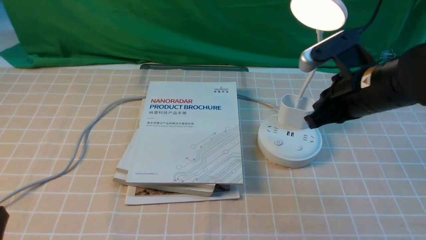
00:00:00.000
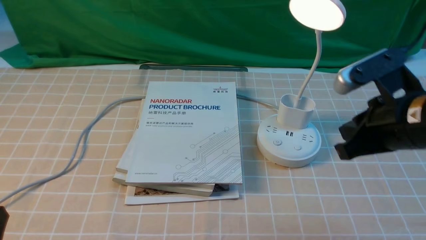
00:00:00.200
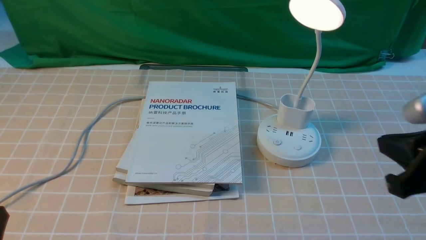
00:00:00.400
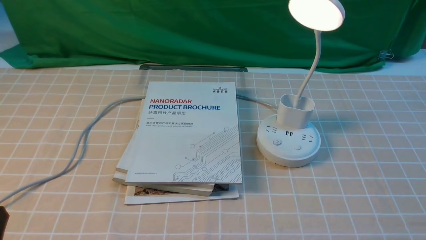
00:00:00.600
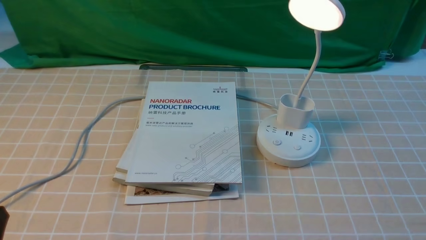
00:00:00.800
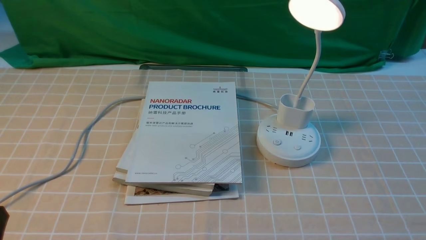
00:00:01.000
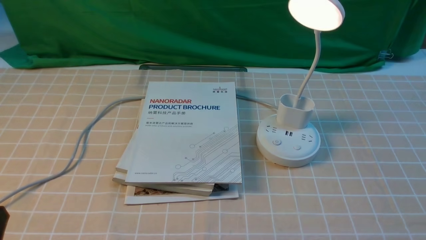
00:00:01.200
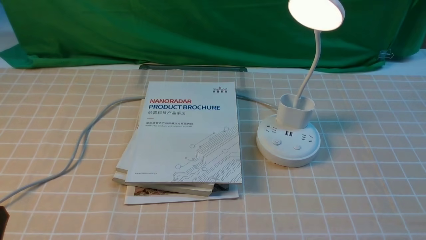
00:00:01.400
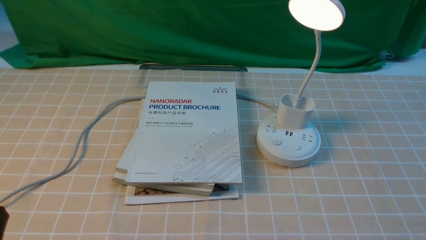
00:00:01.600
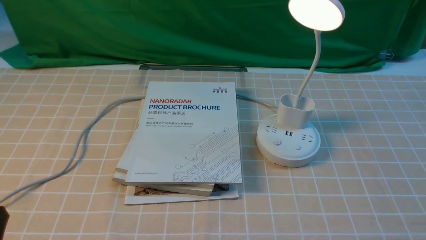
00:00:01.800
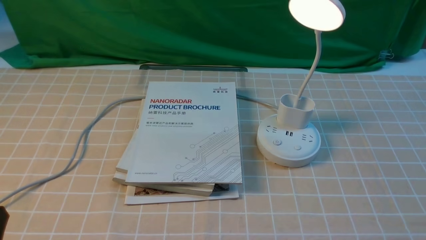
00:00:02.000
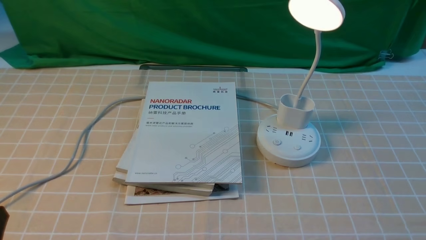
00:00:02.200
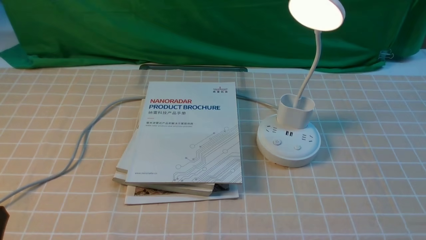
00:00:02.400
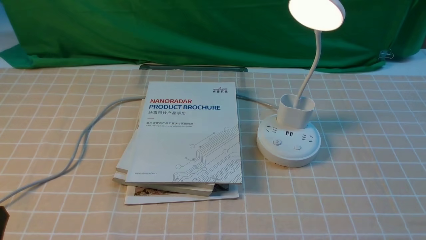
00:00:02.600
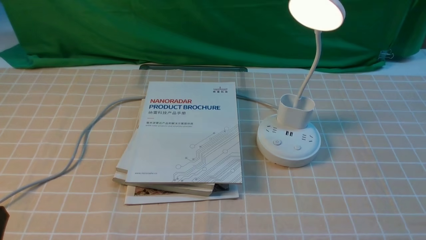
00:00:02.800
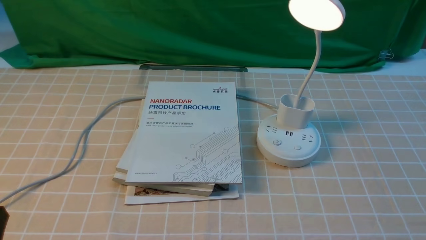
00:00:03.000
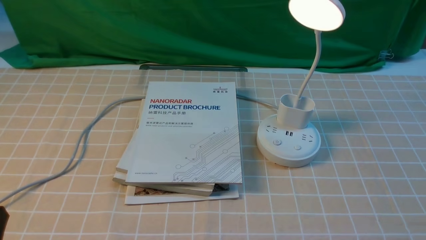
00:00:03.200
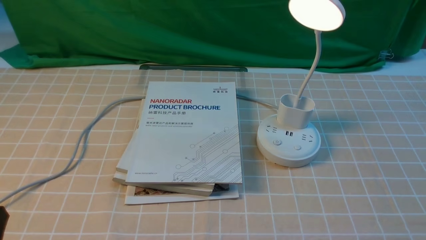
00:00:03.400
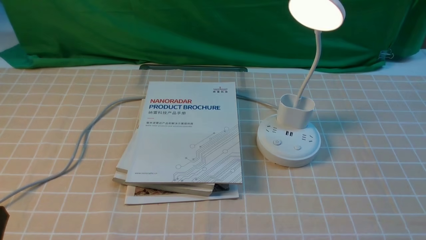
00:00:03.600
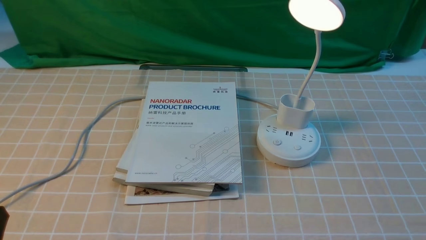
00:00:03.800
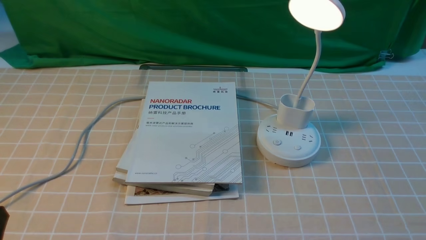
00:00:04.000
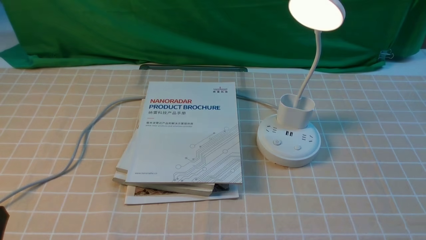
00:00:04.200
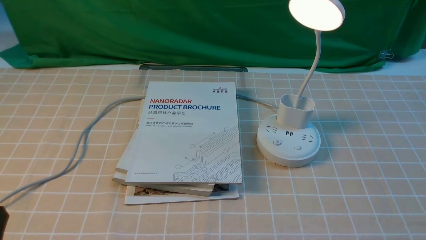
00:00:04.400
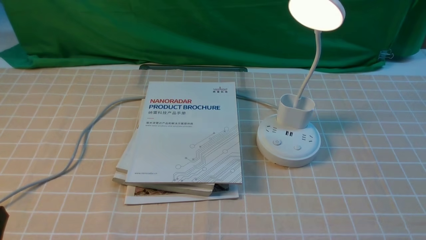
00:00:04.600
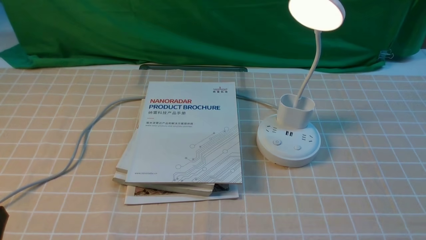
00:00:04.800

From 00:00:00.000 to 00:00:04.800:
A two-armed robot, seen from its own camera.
From 00:00:00.000 to 00:00:01.600: The right gripper shifts approximately 30 cm backward and to the right, and opens its fingers.
From 00:00:03.200 to 00:00:04.800: Both grippers stay put.
